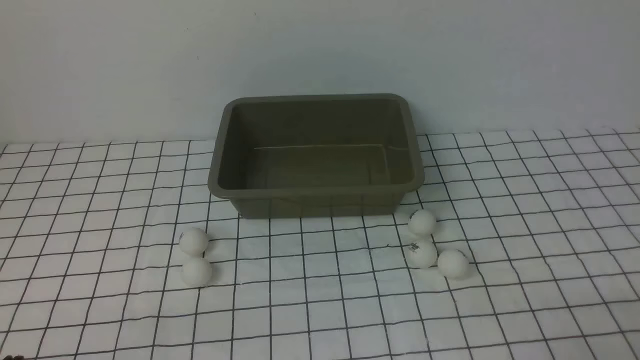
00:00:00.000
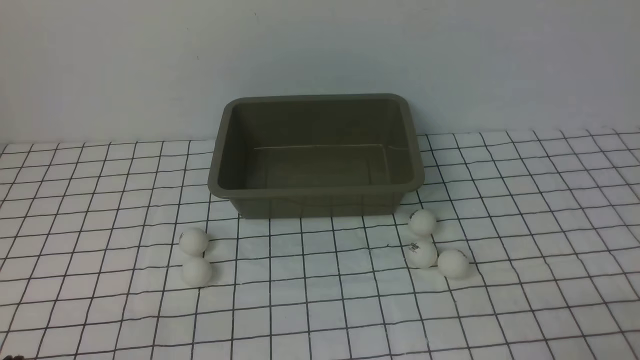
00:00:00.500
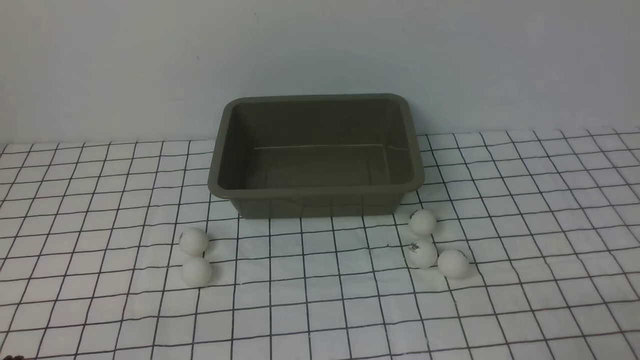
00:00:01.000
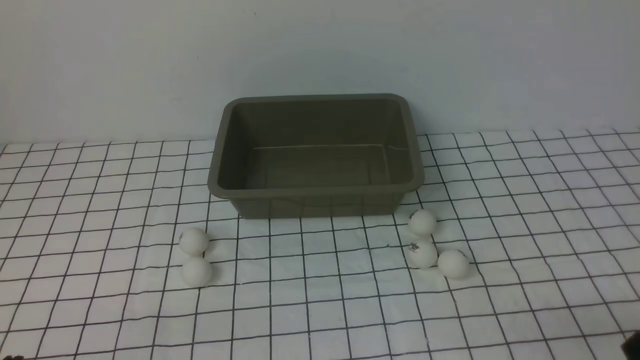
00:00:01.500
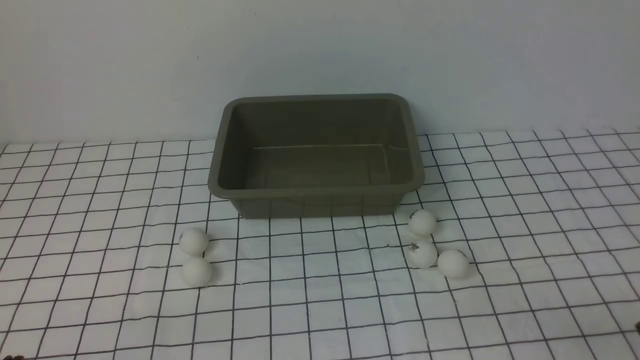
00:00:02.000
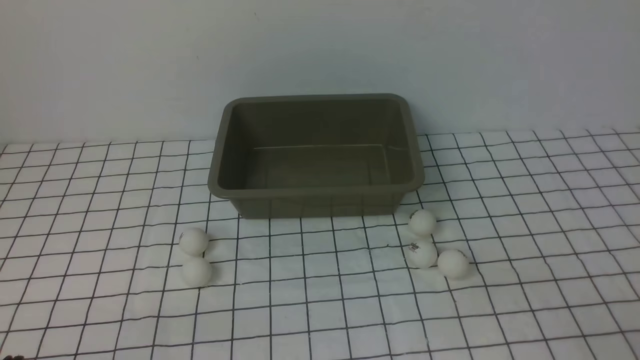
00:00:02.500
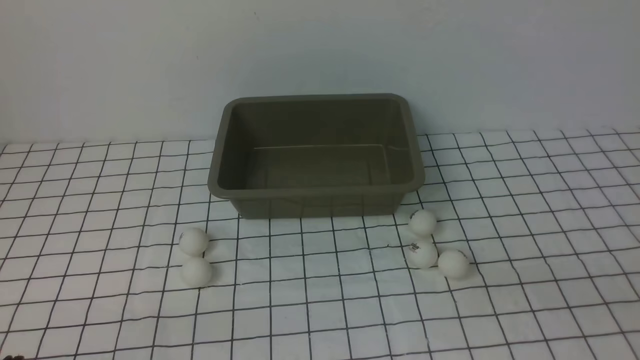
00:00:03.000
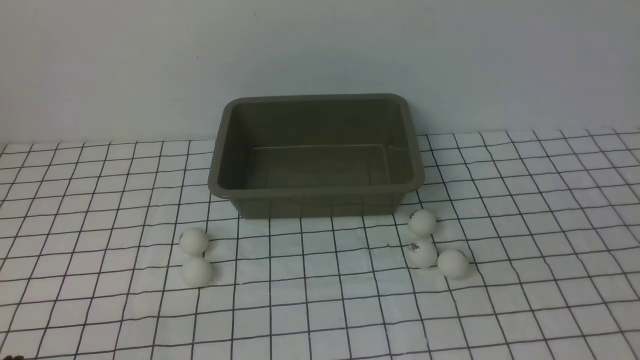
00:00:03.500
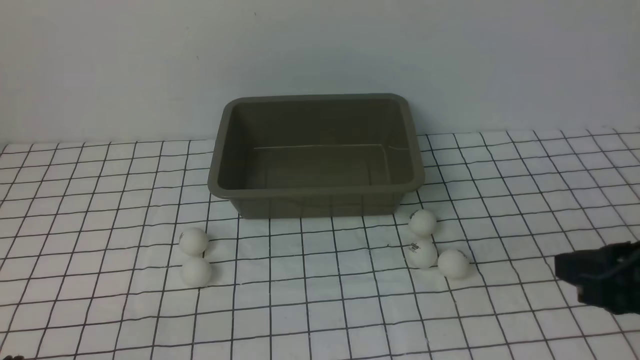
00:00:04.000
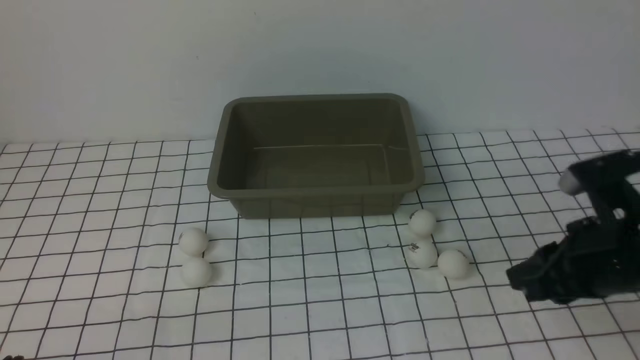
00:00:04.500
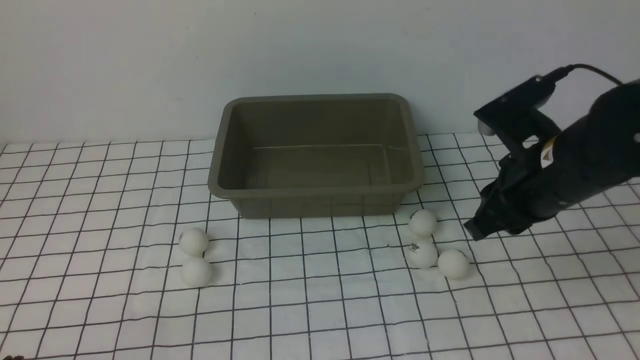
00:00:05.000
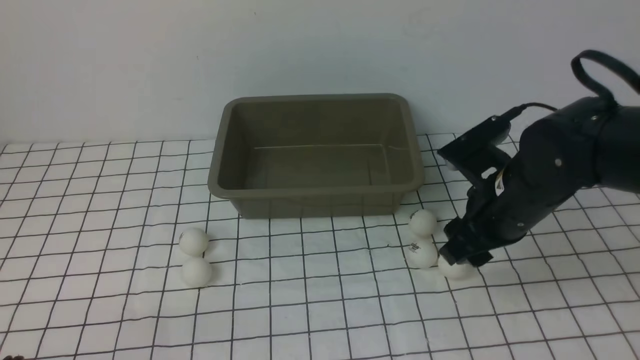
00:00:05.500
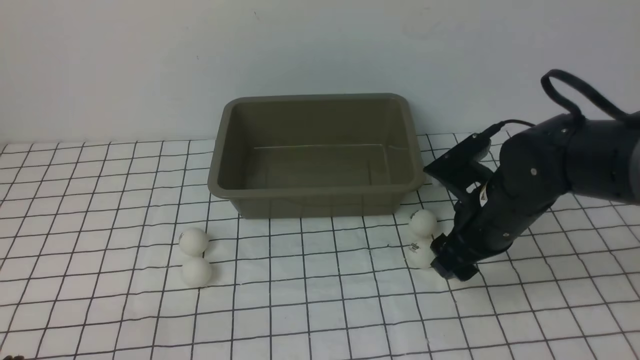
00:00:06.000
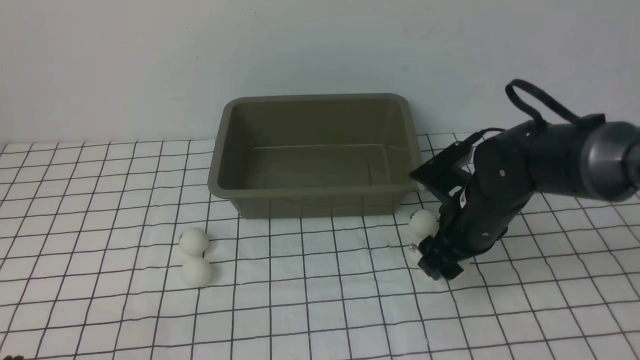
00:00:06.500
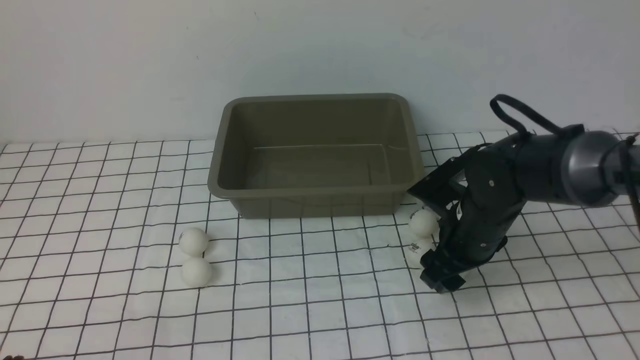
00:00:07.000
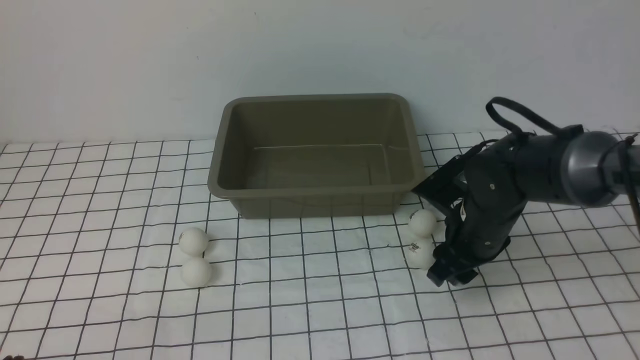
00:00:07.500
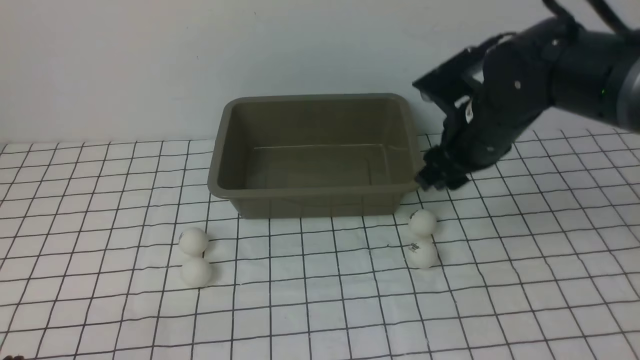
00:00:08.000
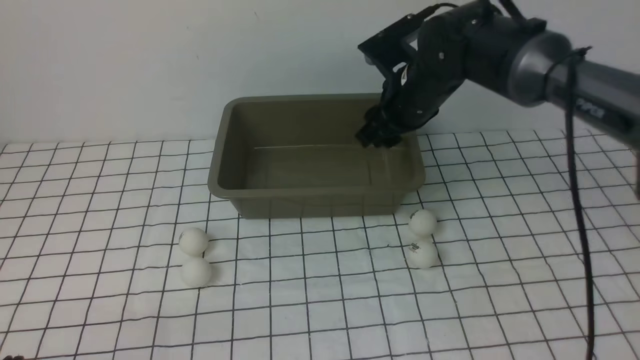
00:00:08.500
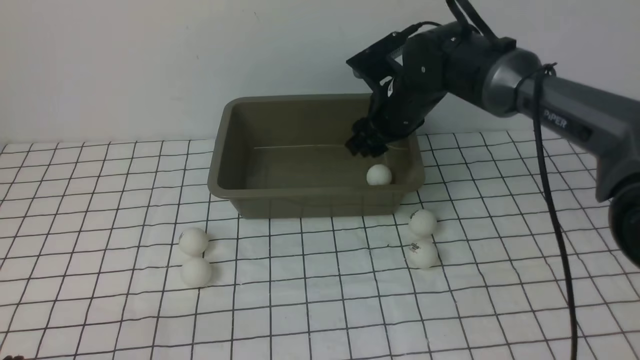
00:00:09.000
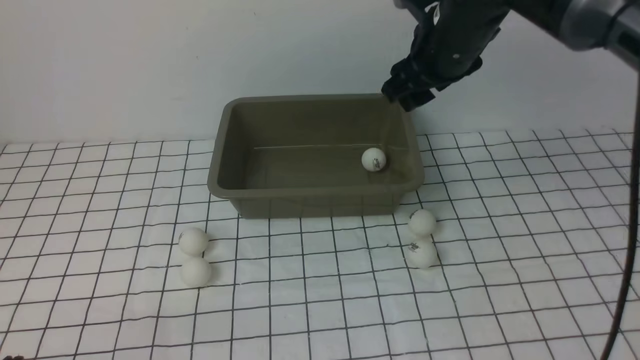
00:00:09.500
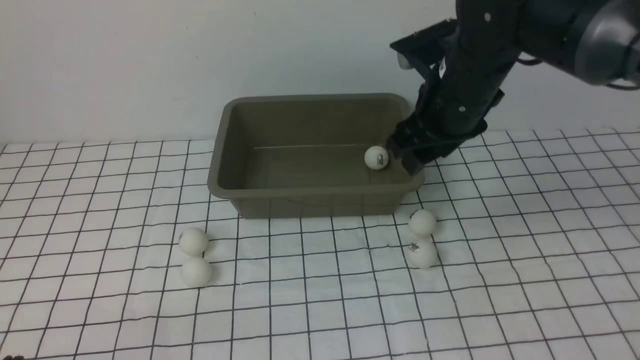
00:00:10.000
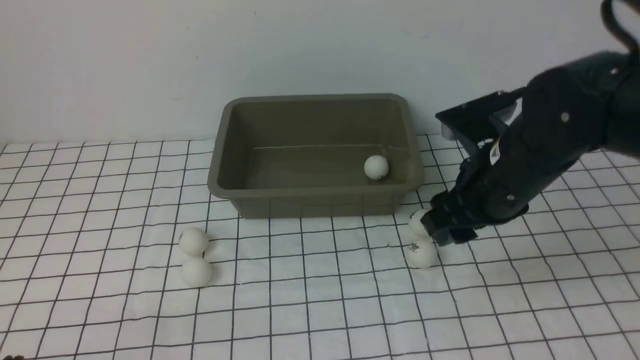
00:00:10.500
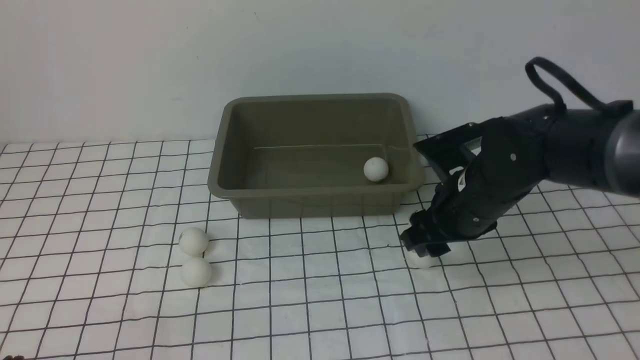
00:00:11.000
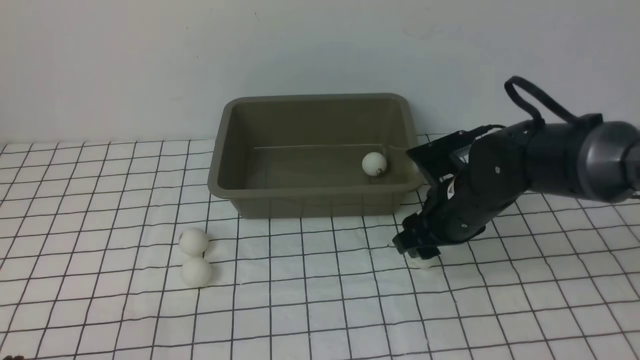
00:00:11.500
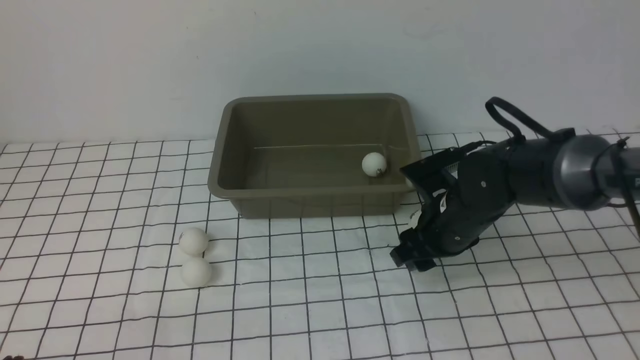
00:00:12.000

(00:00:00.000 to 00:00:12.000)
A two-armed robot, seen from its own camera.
Step, 00:00:00.000 - 00:00:07.500: use the right arm to clamp the table tennis ball closest to it.
Step, 00:00:08.000 - 00:00:09.000: use the right arm to put the table tennis ball into the box.
00:00:02.000 - 00:00:04.000: The right gripper travels forward and upward by roughly 15 cm.
00:00:04.000 - 00:00:06.000: The right gripper goes about 20 cm forward, to the left and downward, and opens its fingers.
00:00:06.000 - 00:00:08.000: The right gripper goes about 10 cm upward and forward.
00:00:10.000 - 00:00:12.000: The right gripper shifts roughly 15 cm downward.

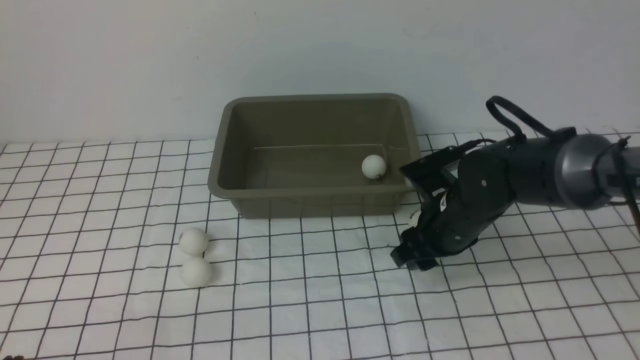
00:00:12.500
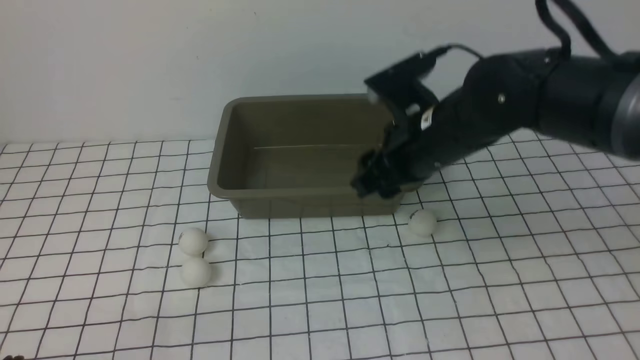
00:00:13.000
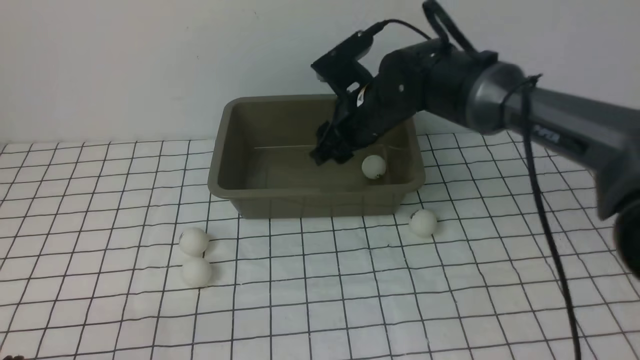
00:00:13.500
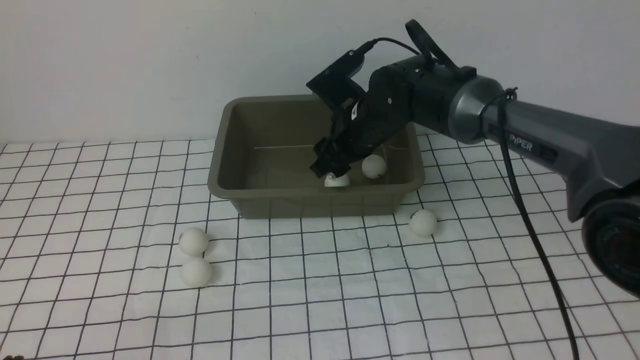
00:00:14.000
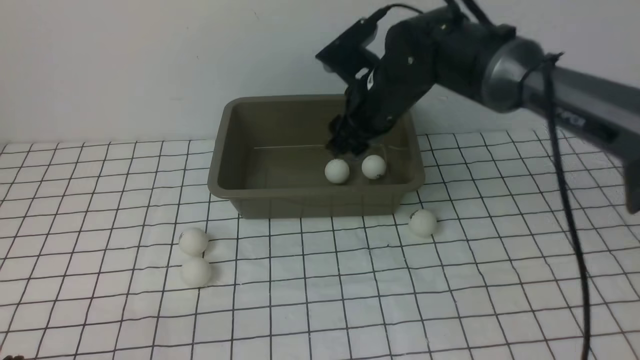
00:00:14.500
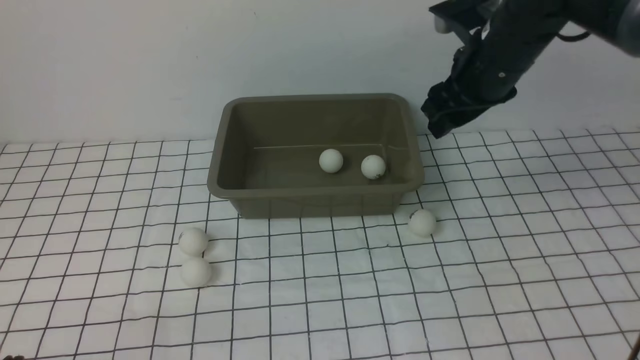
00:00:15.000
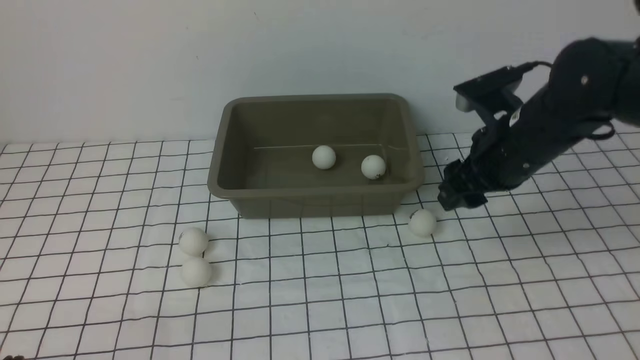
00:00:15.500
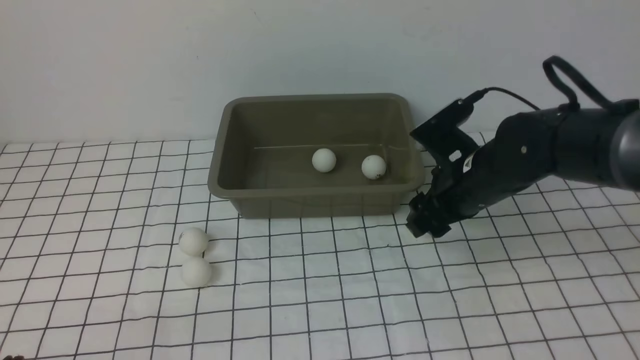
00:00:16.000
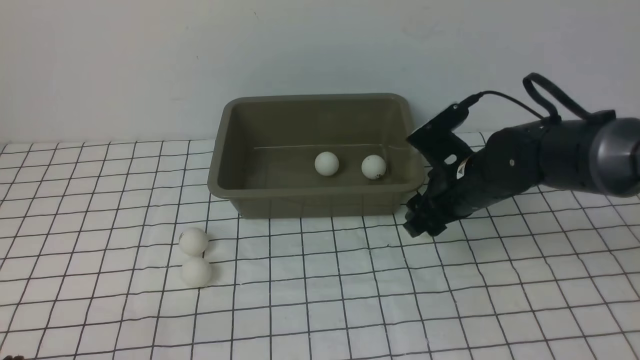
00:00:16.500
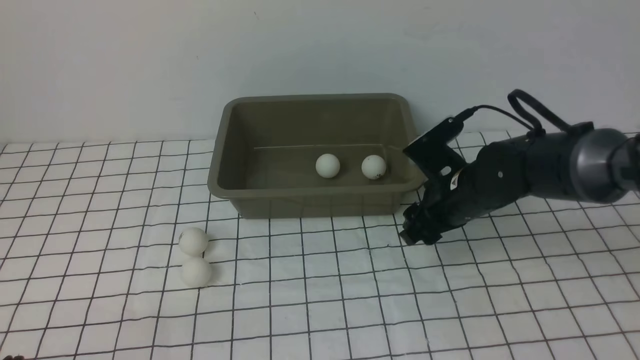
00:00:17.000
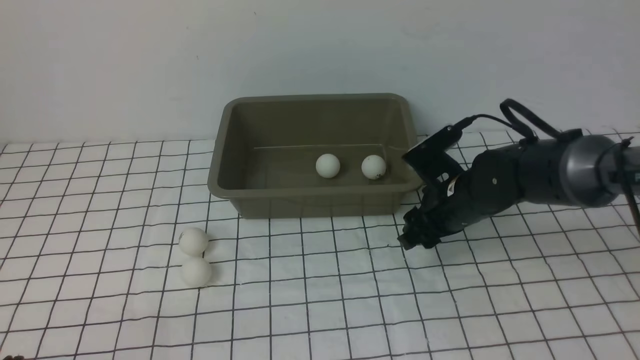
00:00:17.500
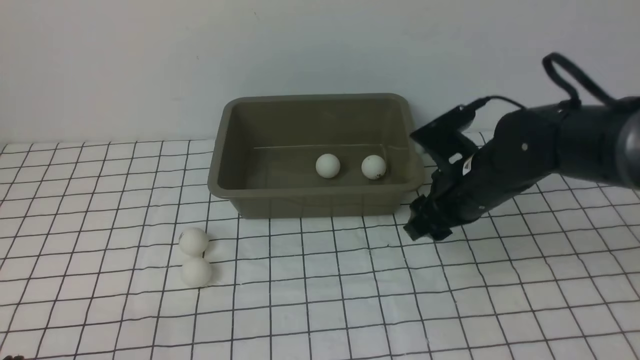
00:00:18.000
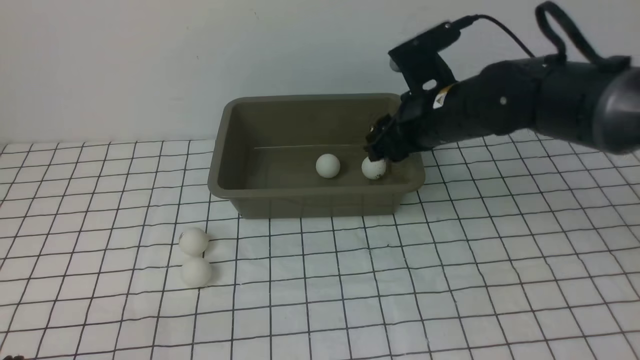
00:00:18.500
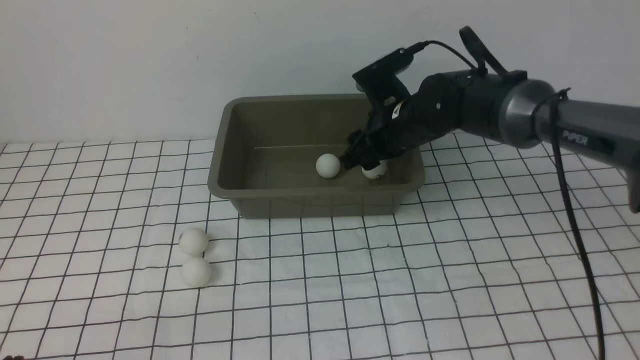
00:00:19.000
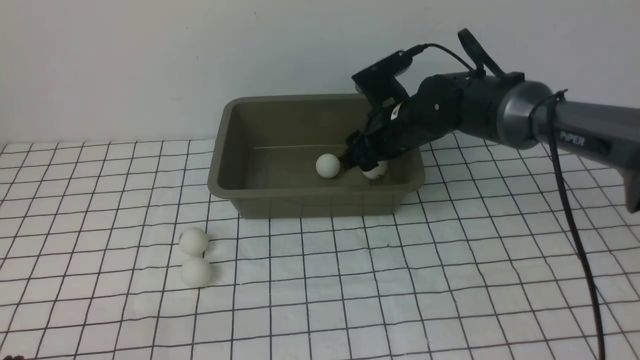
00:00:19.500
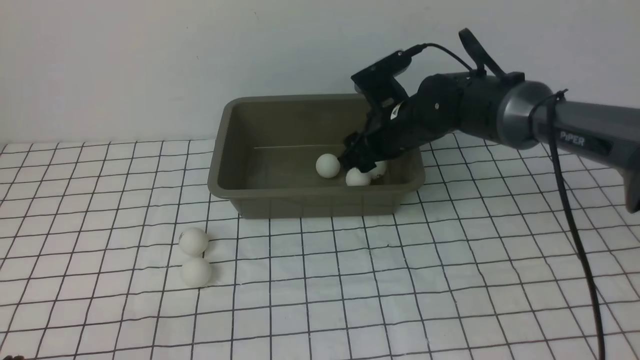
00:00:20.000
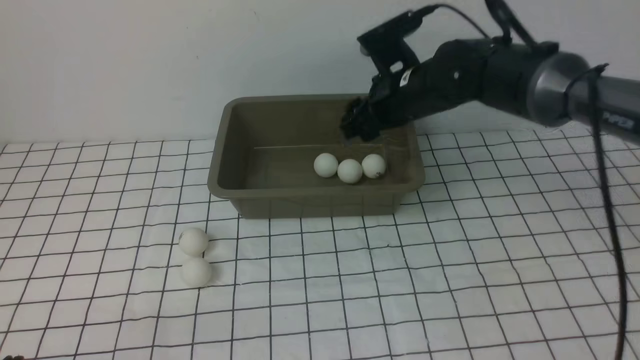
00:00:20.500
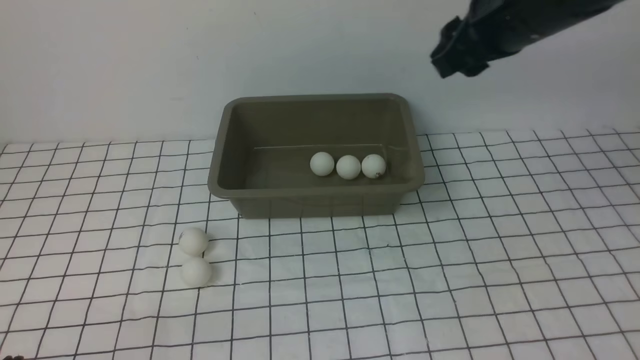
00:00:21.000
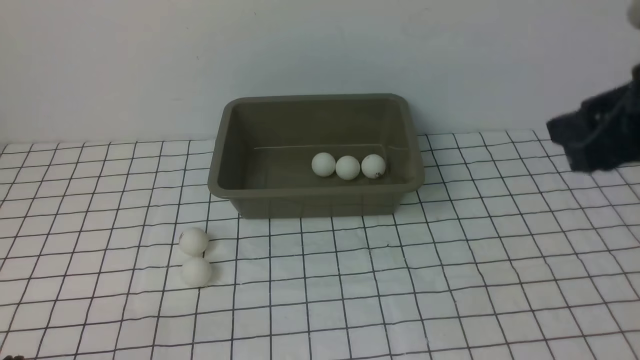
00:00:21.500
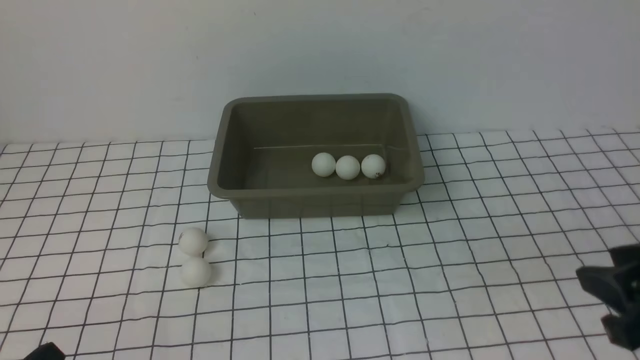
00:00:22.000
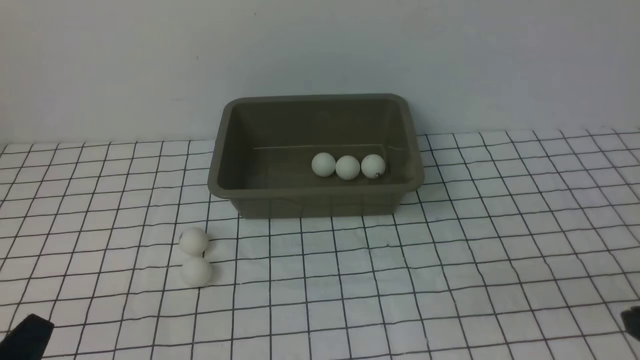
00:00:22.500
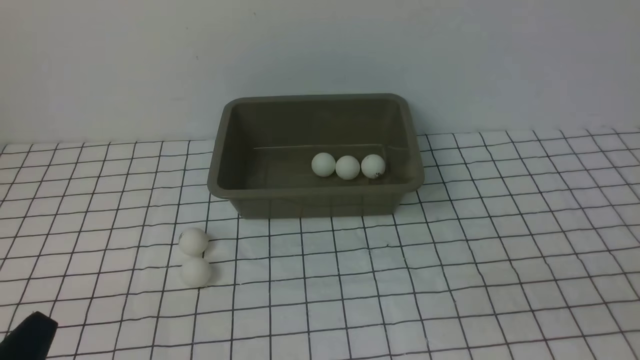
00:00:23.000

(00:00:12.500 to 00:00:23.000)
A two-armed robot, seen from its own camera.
Step, 00:00:13.000 - 00:00:14.000: use the right arm to put the table tennis ball into the box.
Step, 00:00:14.500 - 00:00:18.000: use the right arm to clamp the table tennis ball closest to it.
Step, 00:00:18.500 - 00:00:20.000: use the right arm to put the table tennis ball into the box.
00:00:12.500 - 00:00:14.500: The right gripper swings up and down, some 15 cm each way, with 2 reversals.
00:00:14.500 - 00:00:16.500: The right gripper travels downward, to the right and backward by some 15 cm.
00:00:16.500 - 00:00:19.000: The right gripper shifts approximately 10 cm forward and to the left, and reaches about 5 cm upward, then returns.
00:00:19.000 - 00:00:21.000: The right gripper shifts roughly 20 cm upward, to the right and backward.
00:00:21.000 - 00:00:23.000: The right gripper goes about 30 cm backward and downward, and closes its fingers.
